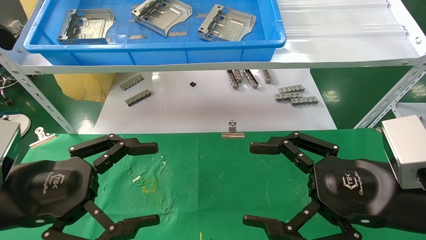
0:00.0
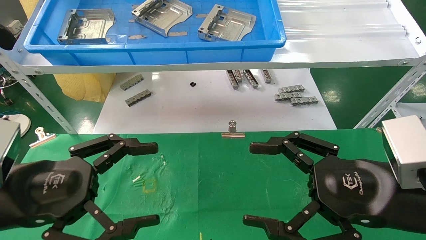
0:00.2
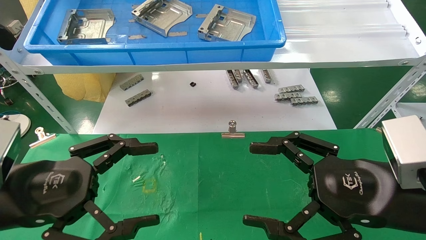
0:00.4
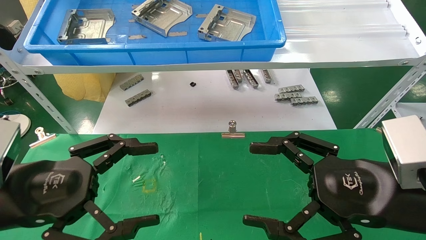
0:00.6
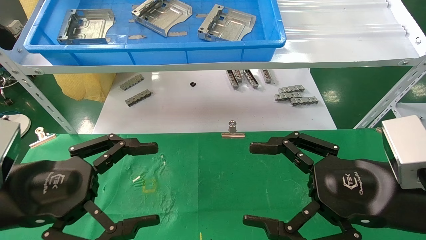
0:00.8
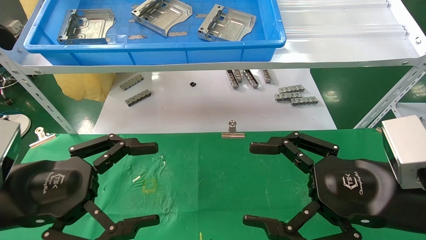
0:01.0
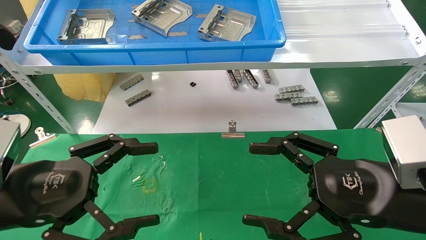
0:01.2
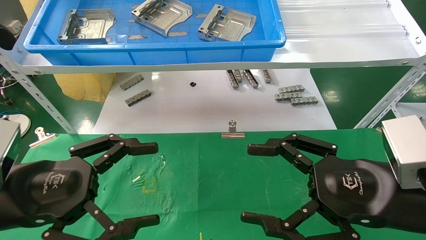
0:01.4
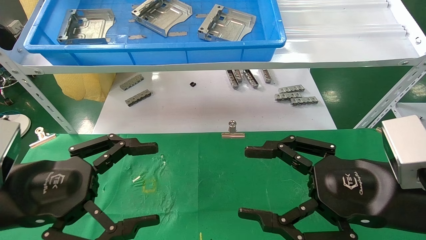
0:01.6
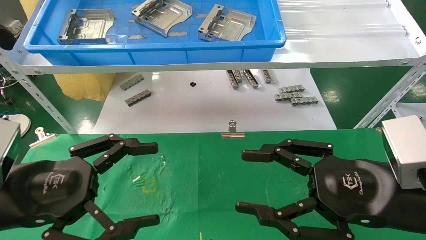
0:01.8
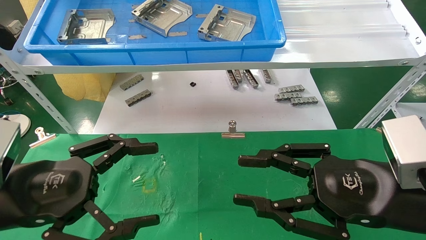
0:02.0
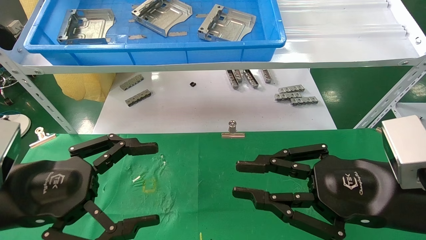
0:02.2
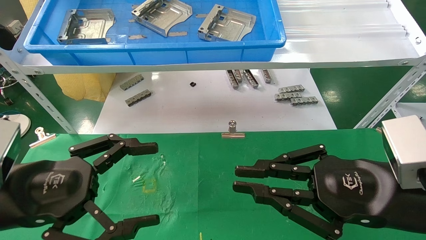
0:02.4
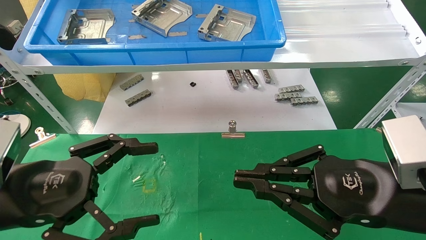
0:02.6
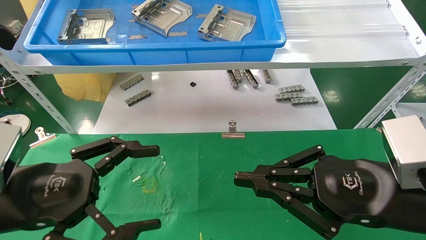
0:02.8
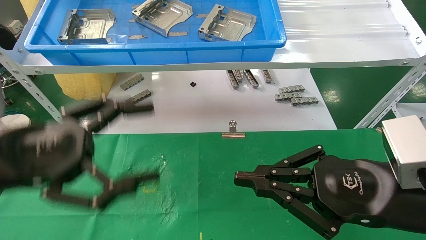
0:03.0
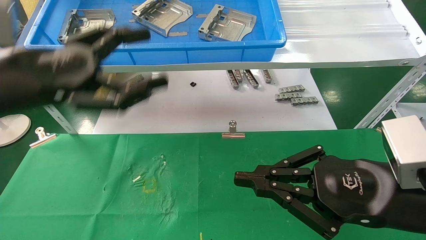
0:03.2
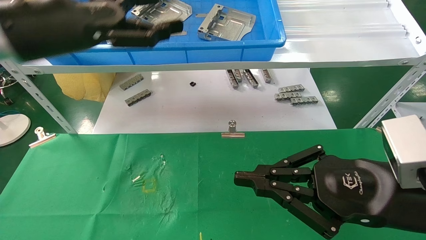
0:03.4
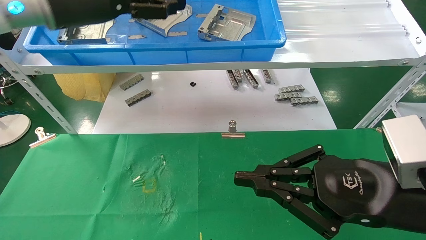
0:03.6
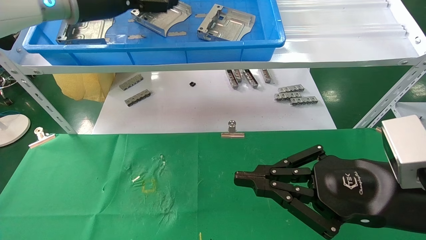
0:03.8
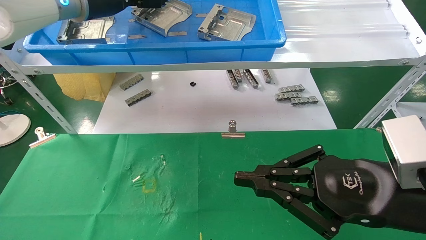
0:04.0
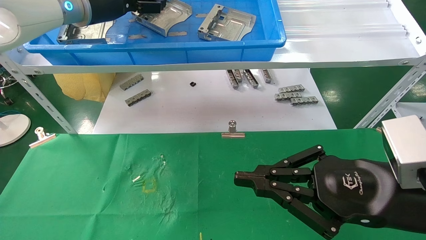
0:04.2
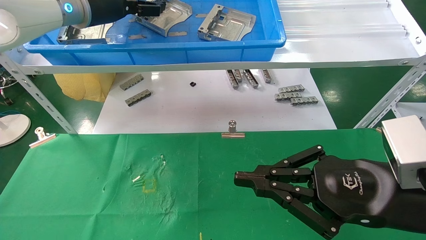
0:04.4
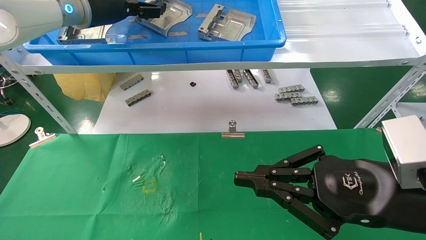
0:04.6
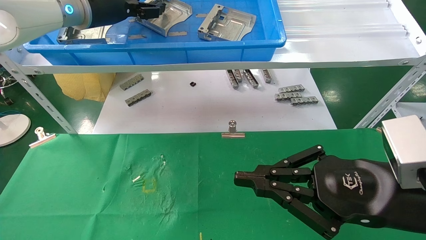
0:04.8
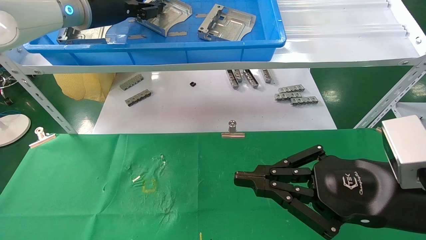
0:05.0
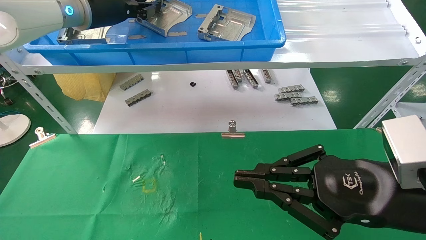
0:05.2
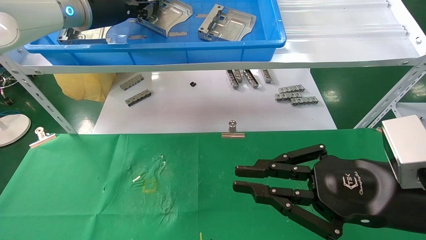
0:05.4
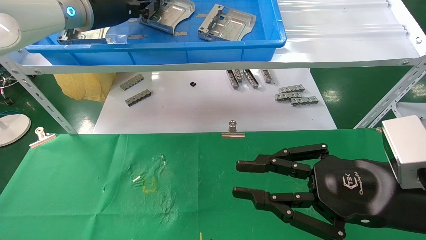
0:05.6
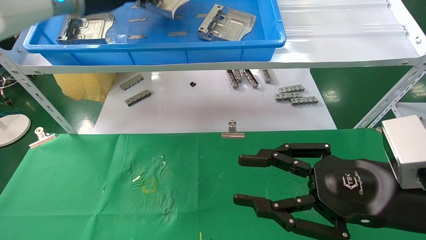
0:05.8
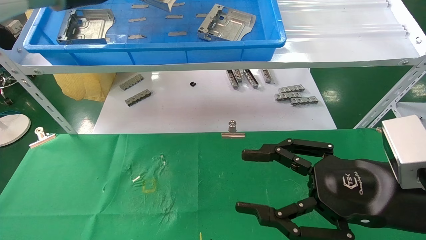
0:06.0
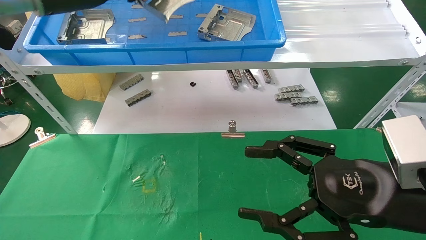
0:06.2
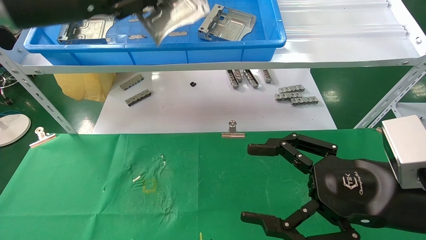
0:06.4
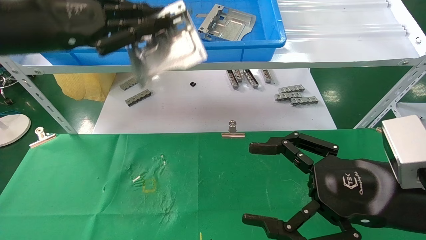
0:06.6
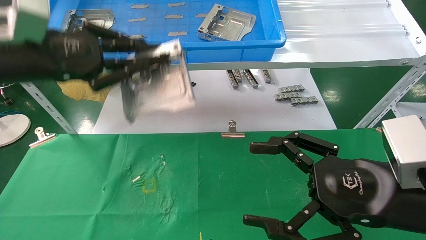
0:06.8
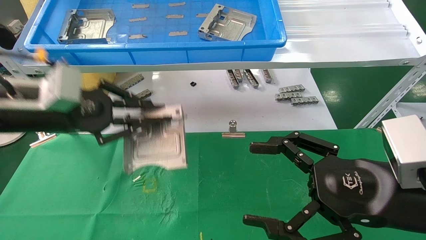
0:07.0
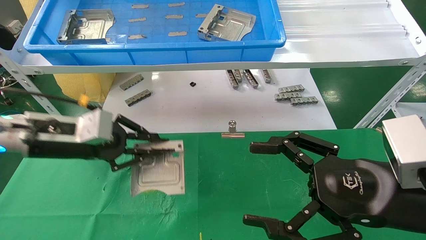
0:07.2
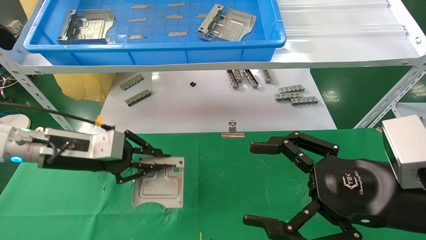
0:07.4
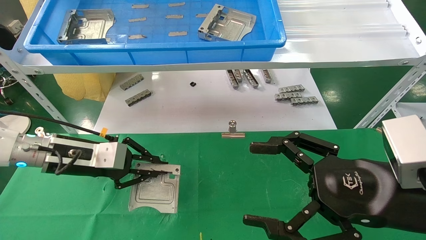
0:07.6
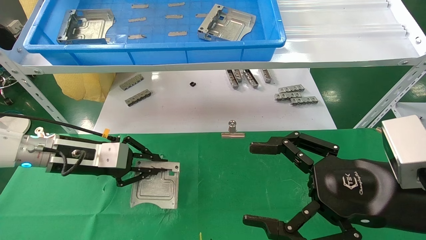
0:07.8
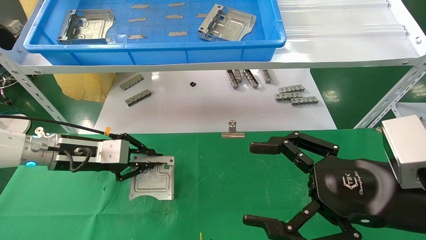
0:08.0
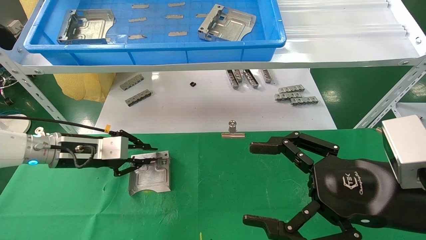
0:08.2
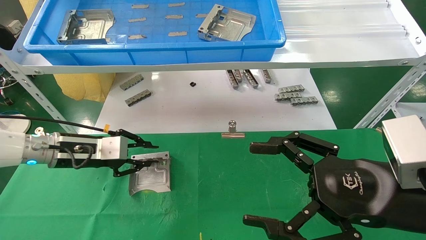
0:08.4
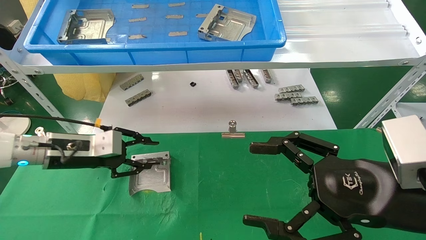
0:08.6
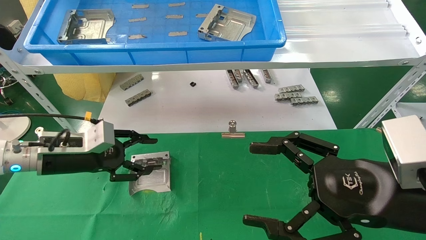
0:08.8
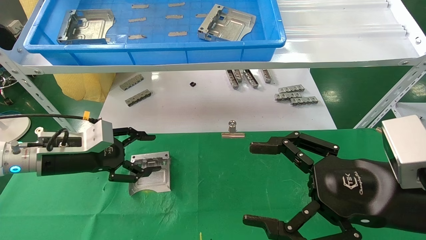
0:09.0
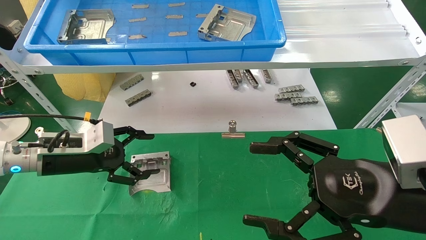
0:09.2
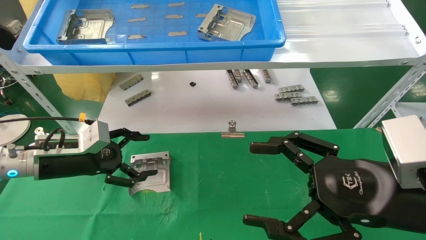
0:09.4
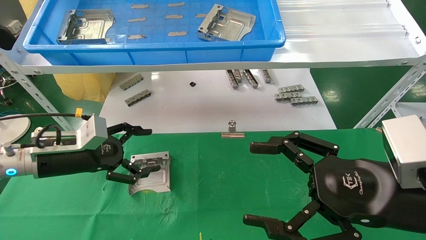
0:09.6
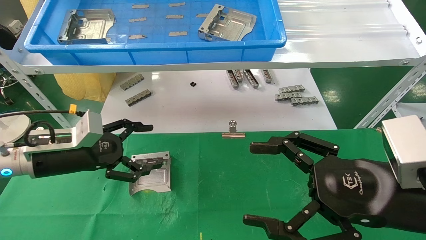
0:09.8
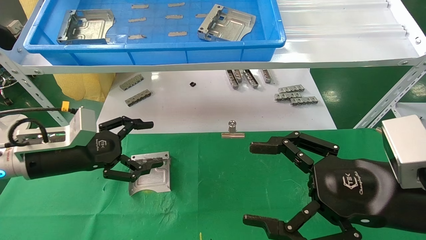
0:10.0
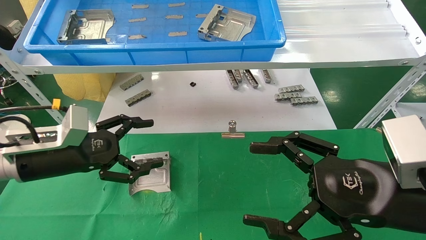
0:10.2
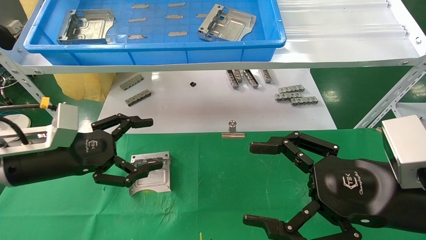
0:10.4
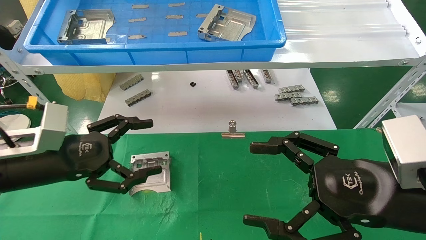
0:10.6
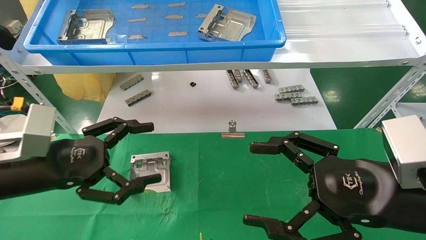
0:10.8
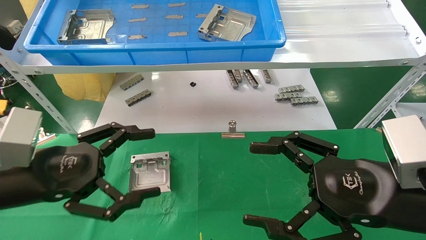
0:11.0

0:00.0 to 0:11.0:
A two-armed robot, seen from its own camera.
Task of the whole recording: use the mechanical arm to pick up the parts and place them on the table.
Step, 0:01.6 to 0:06.0: Pick up the hard drive bracket from the feeding area.
Step, 0:06.2 to 0:09.4: Place the hard drive bracket into the box.
0:00.0 to 0:01.6: Neither gripper changes place.
0:01.6 to 0:03.2: The left gripper shifts some 15 cm upward and forward; the right gripper closes its fingers.
0:03.2 to 0:04.8: The left gripper heads forward and upward, covering approximately 20 cm.
0:04.8 to 0:06.2: The right gripper opens its fingers; the left gripper heads backward, covering roughly 5 cm, and closes up.
0:06.2 to 0:07.8: The left gripper moves downward, about 25 cm.
0:07.8 to 0:09.4: The left gripper opens up.
0:09.4 to 0:11.0: The left gripper shifts about 15 cm backward.
